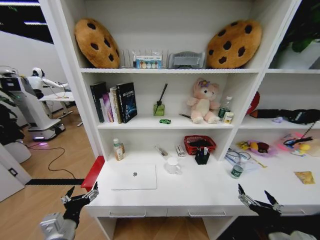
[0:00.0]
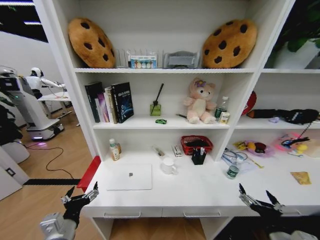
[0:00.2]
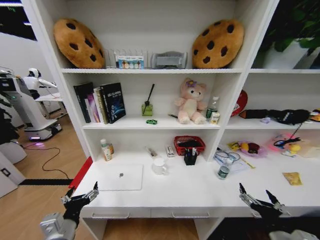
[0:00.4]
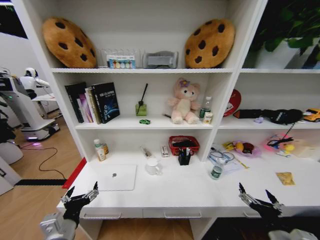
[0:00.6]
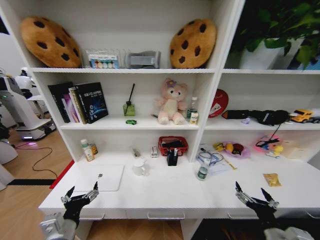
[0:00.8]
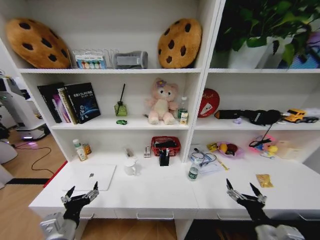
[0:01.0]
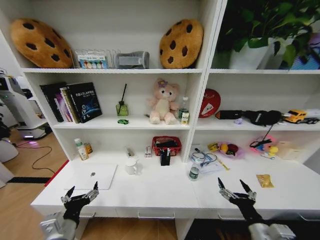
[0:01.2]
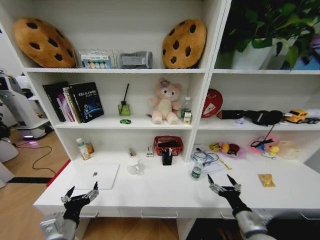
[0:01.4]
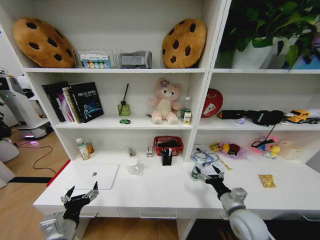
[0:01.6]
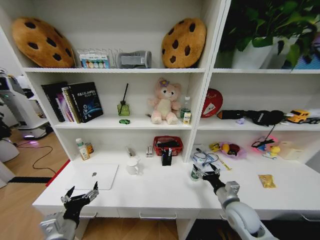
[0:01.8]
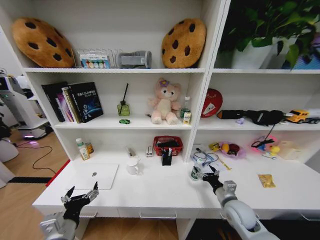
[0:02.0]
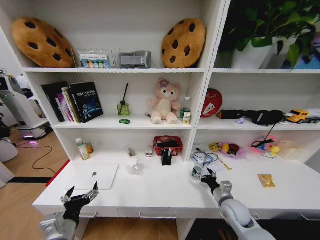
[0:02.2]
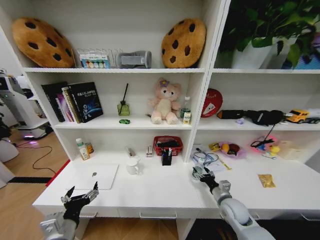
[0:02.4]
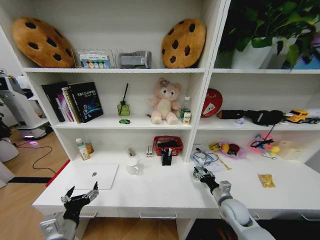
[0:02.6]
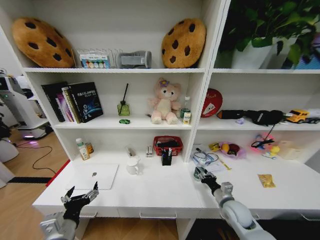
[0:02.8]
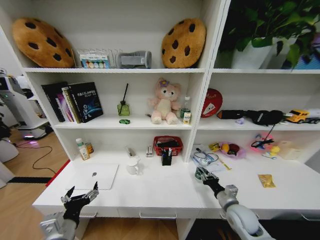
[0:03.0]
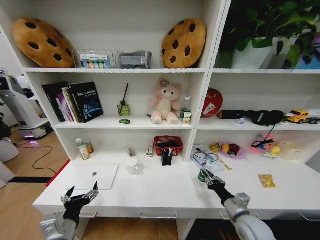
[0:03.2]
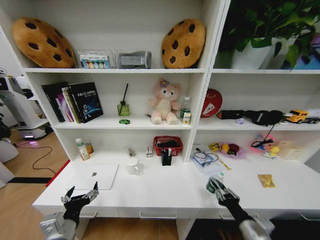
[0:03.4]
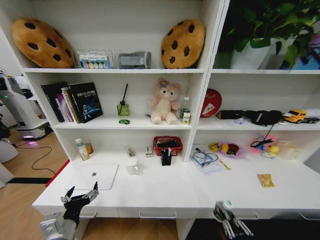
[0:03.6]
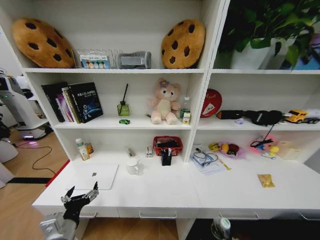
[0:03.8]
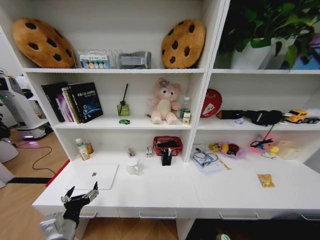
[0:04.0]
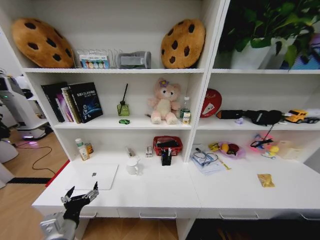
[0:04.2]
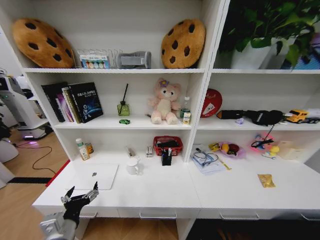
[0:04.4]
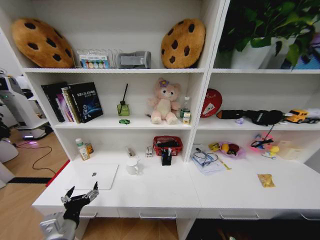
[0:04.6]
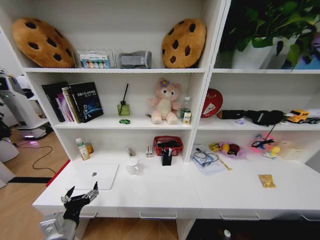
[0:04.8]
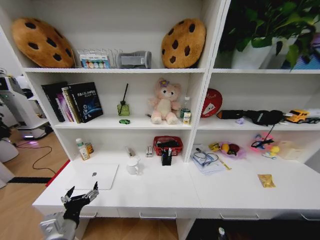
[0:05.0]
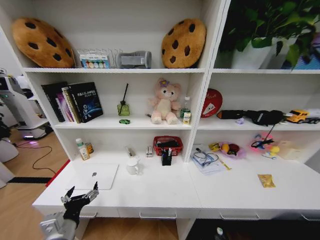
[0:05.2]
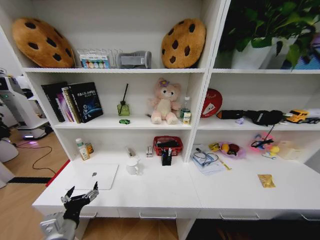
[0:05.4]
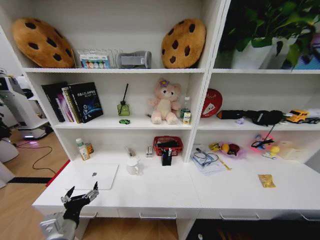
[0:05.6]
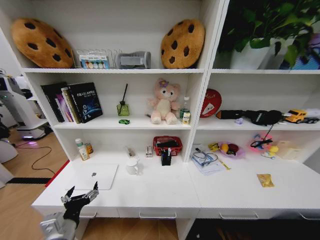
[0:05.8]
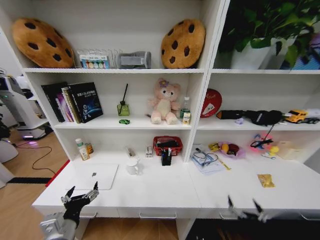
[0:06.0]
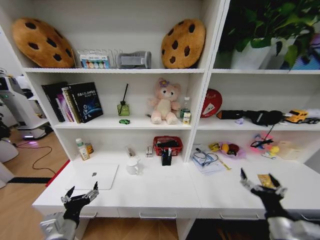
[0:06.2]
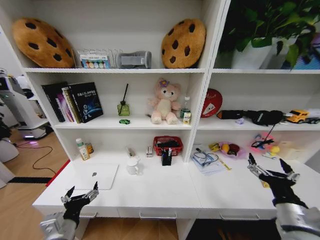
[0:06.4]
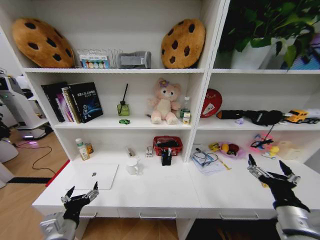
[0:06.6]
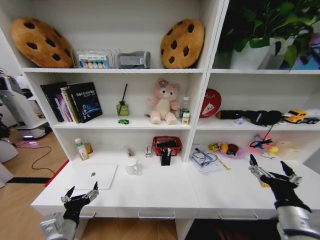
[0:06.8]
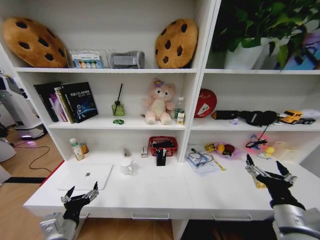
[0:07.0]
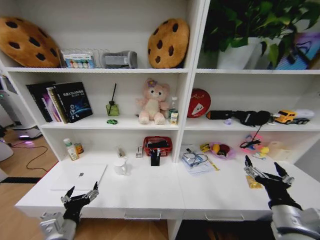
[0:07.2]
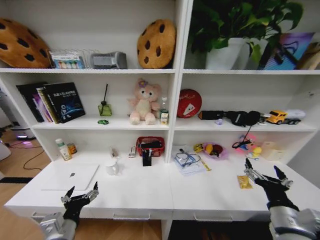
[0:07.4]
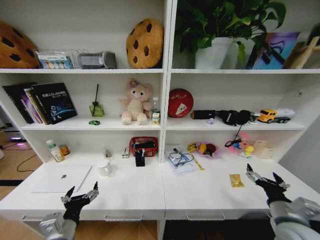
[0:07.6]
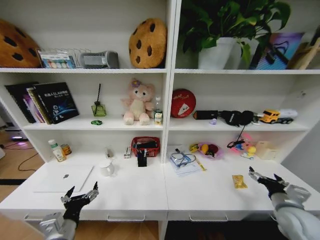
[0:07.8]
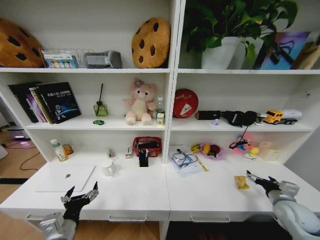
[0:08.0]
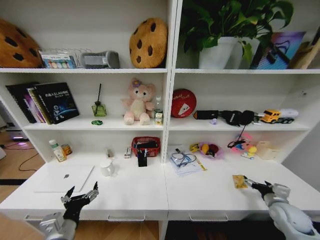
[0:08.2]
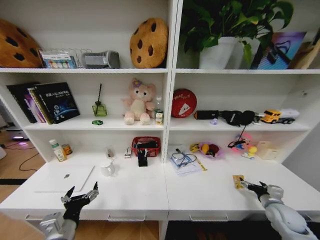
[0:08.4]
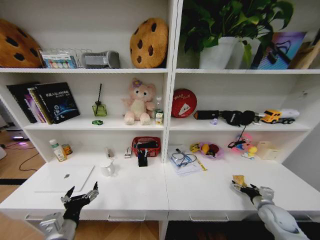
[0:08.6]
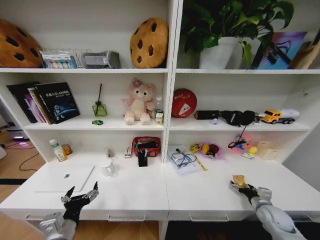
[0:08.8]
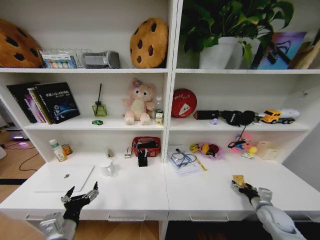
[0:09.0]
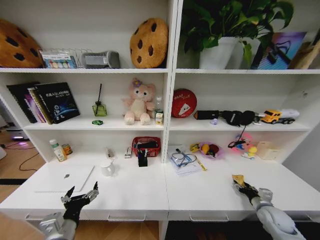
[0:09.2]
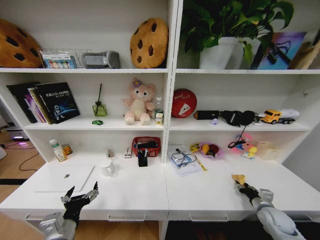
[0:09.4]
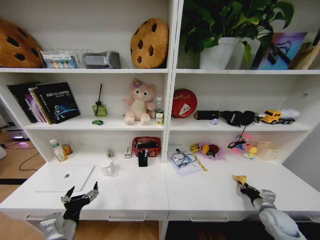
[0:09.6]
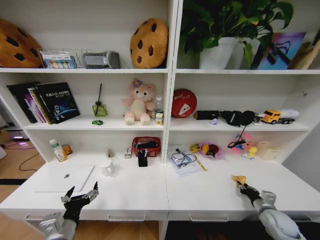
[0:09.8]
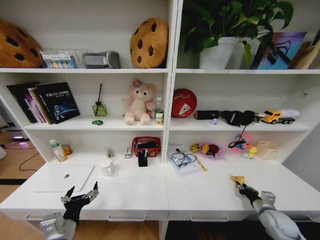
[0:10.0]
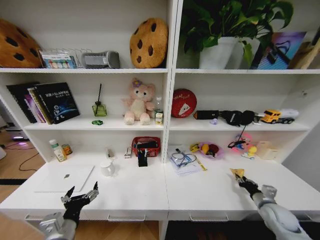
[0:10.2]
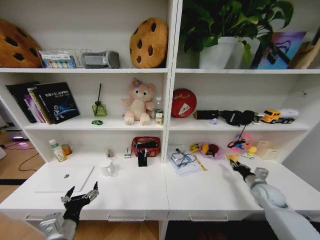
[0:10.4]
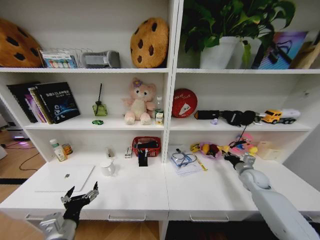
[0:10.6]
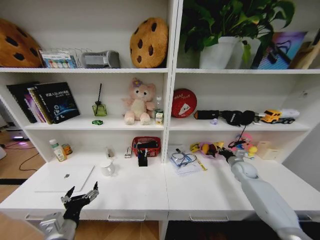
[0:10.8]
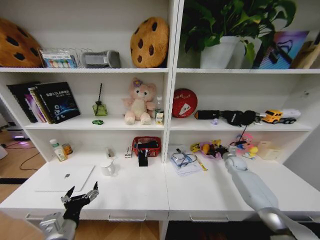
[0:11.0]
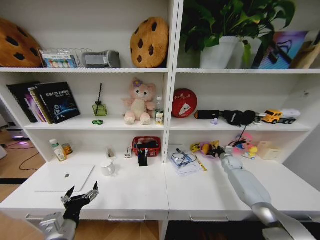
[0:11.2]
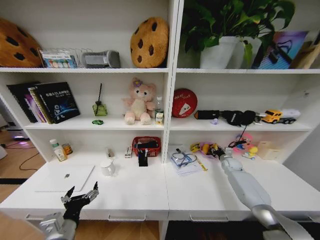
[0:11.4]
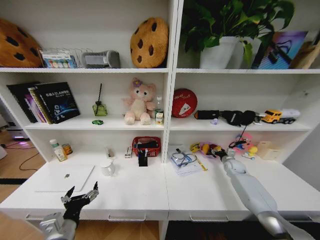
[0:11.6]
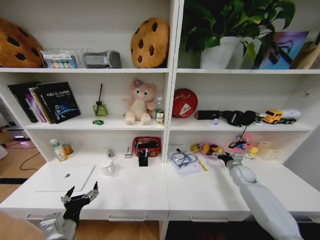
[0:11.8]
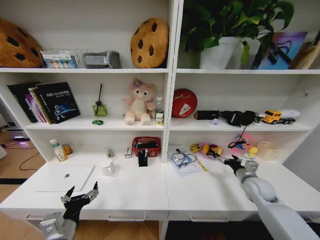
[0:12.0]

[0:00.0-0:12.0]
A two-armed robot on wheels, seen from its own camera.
Task of the whole recording: Organize the objects on the table.
0:00.0 to 0:01.6: The right gripper travels forward by some 10 cm.
0:01.6 to 0:03.0: The right gripper closes up.
0:03.0 to 0:04.4: The right gripper travels backward and downward by about 35 cm.
0:06.0 to 0:07.6: The right gripper is displaced upward and forward by about 20 cm.
0:07.6 to 0:09.0: The right gripper moves downward, to the right and forward, about 20 cm.
0:09.0 to 0:10.4: The right gripper moves approximately 5 cm, and closes up.
0:10.4 to 0:12.0: The right gripper moves to the left and upward, some 10 cm, goes forward and returns, some 20 cm each way, and opens.

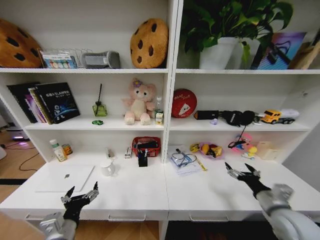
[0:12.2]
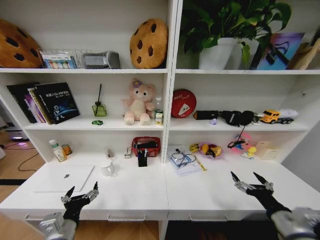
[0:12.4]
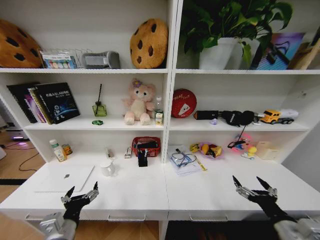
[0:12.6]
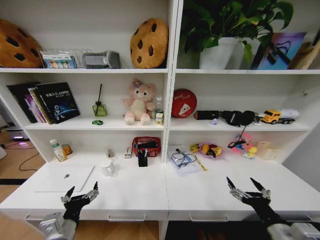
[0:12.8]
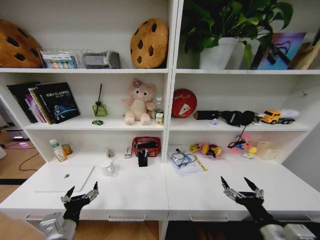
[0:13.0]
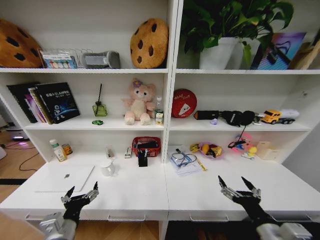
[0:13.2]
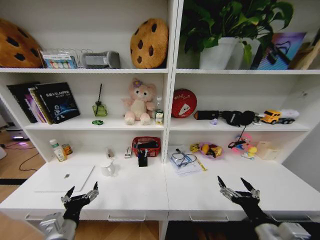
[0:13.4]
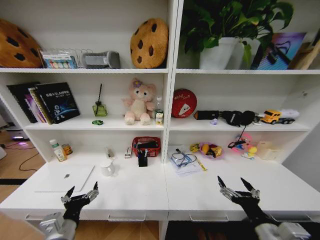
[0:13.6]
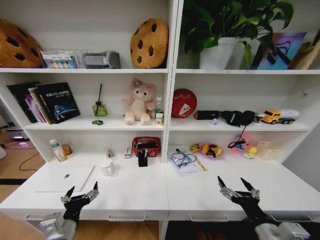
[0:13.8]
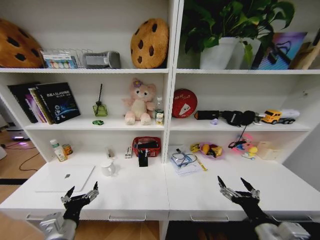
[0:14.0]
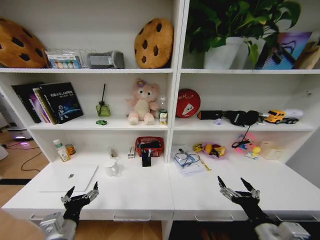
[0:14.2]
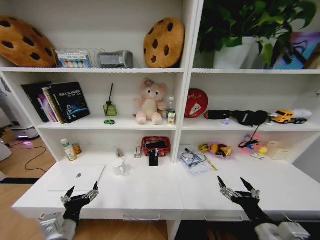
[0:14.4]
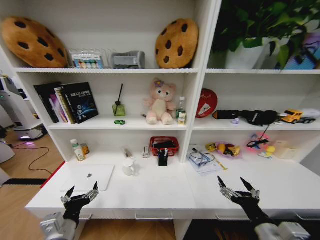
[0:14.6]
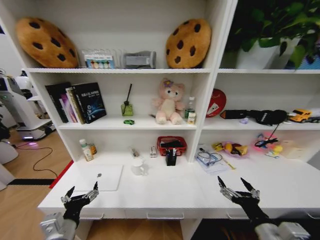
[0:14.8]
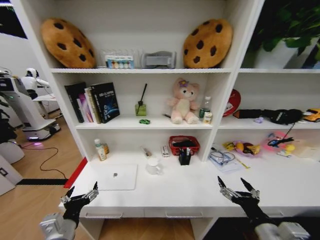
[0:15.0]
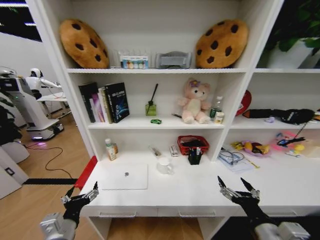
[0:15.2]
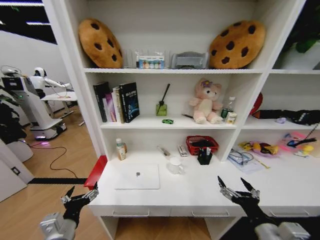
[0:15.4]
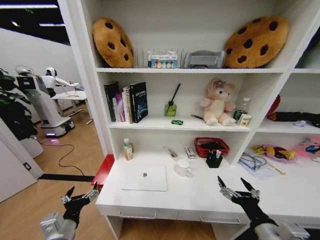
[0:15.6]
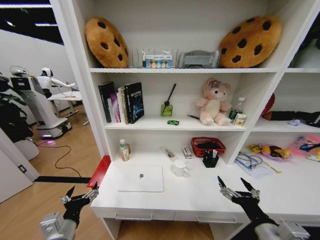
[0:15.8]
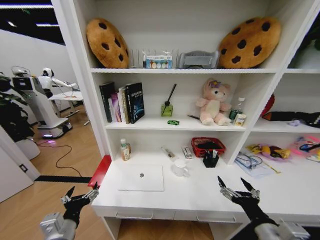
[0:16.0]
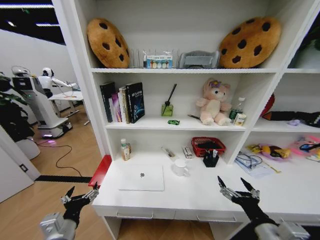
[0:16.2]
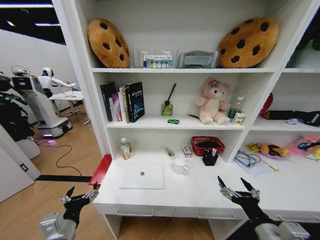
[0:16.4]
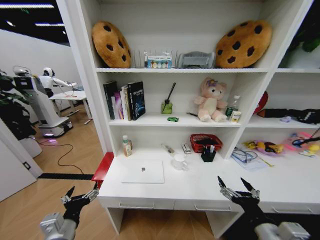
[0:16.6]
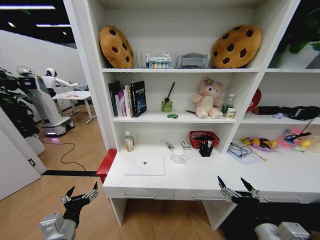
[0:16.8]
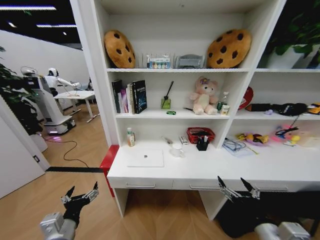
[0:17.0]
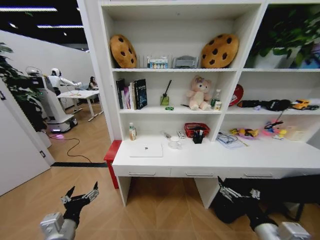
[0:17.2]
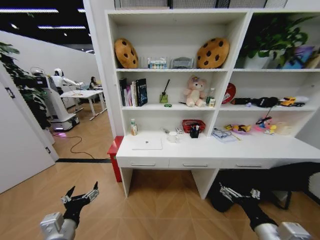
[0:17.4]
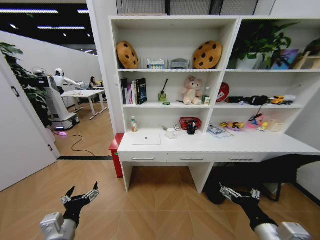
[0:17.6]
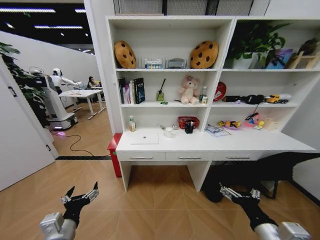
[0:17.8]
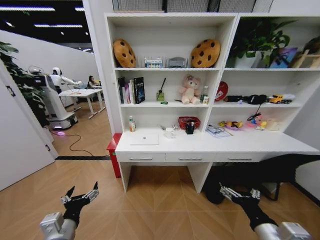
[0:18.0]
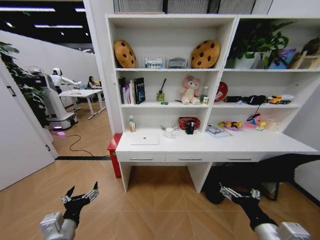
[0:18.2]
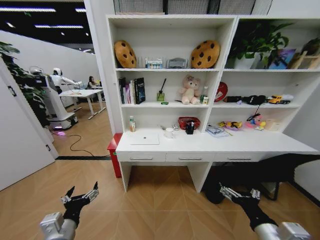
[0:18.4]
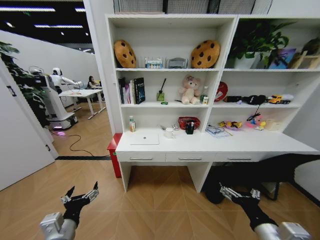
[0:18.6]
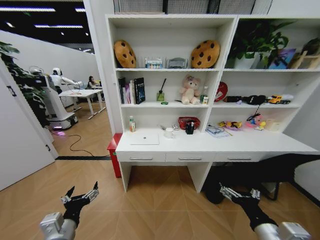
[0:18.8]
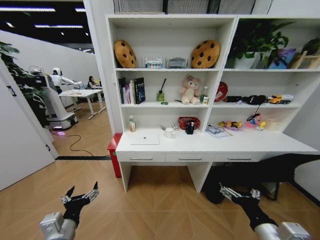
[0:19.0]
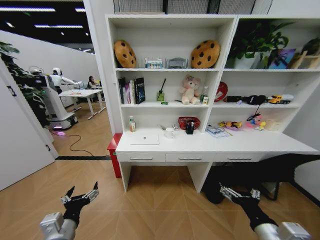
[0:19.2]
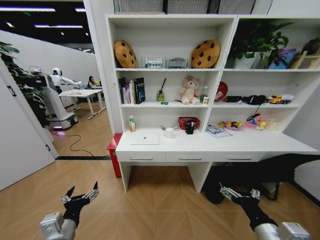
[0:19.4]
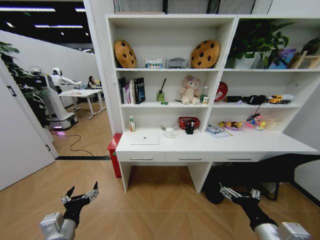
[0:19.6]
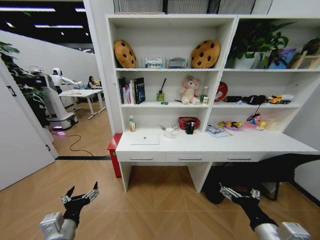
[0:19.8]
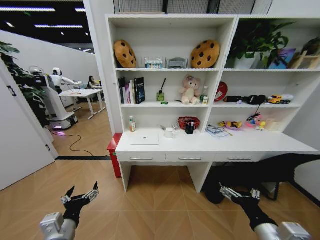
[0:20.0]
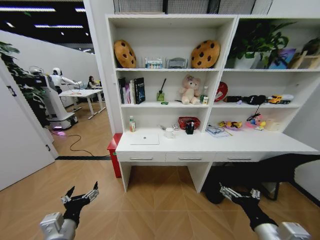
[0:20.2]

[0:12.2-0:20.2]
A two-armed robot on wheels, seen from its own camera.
Task of the whole recording: Organize the objects on the table.
0:12.2 to 0:13.8: The right gripper goes approximately 15 cm backward and to the left.
0:18.6 to 0:20.2: Neither gripper changes place.

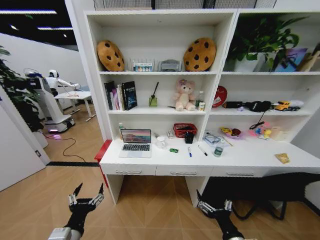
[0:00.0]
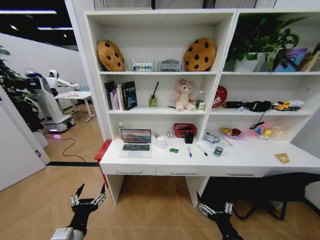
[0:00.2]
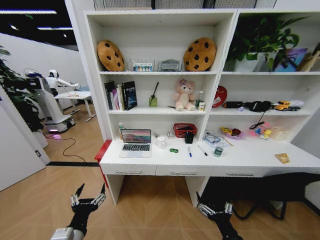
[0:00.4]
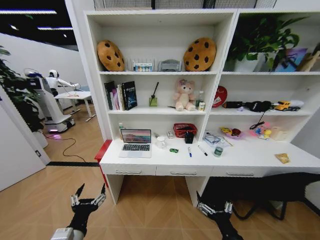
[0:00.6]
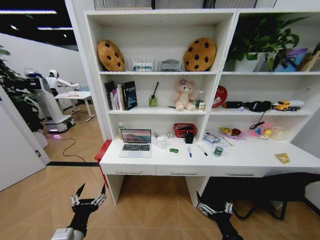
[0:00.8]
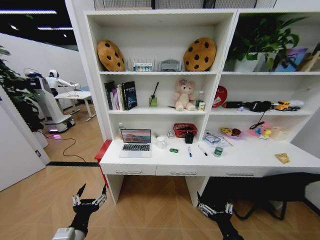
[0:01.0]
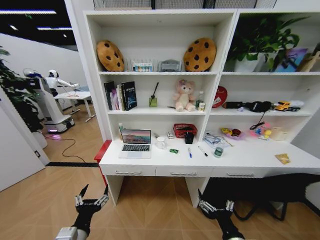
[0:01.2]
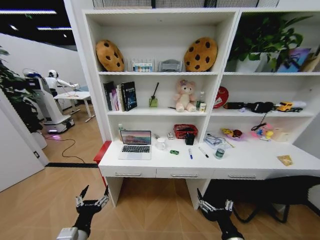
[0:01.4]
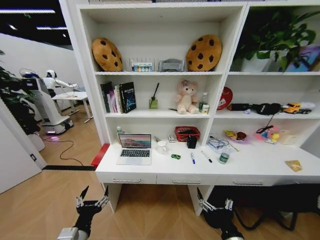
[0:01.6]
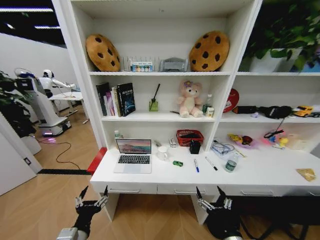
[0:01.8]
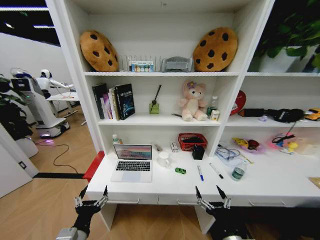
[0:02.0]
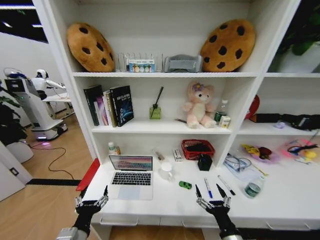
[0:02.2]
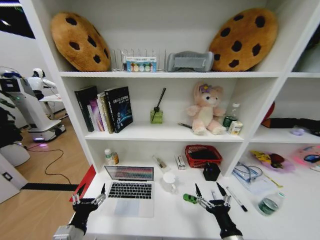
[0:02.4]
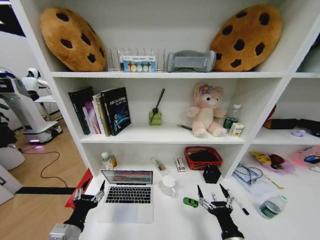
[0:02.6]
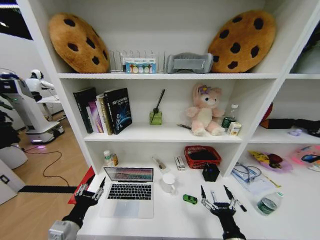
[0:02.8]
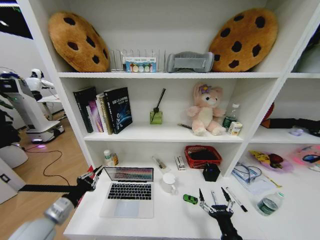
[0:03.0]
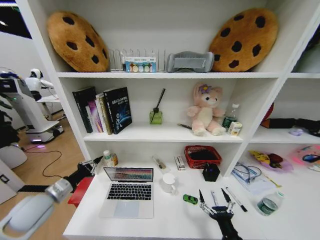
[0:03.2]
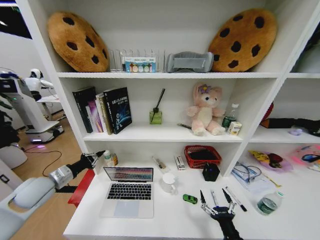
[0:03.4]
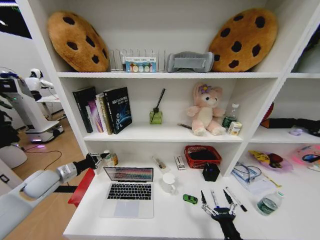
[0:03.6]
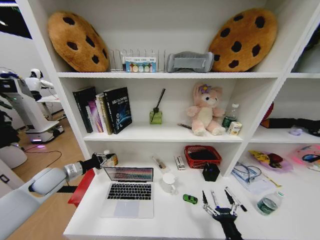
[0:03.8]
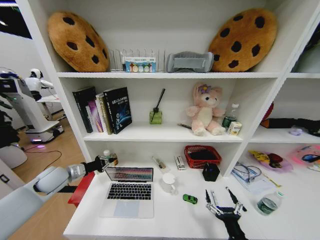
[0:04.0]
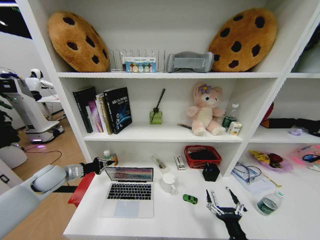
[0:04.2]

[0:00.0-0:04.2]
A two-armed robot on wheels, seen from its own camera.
Task of the whole recording: Organize the objects on the table.
0:01.4 to 0:02.8: The left gripper is displaced to the left by some 5 cm, and closes.
0:02.8 to 0:04.2: The left gripper is displaced forward and to the left by roughly 25 cm, and closes its fingers.
